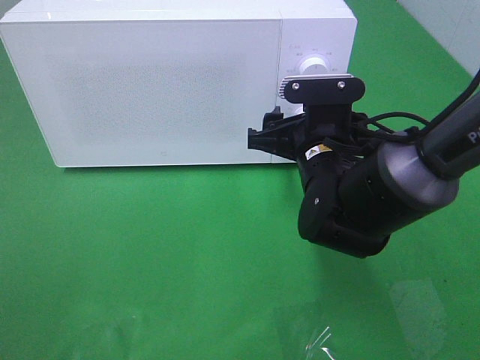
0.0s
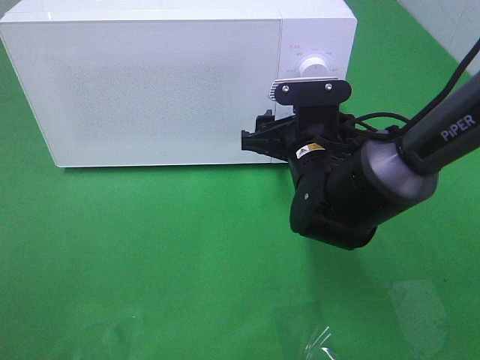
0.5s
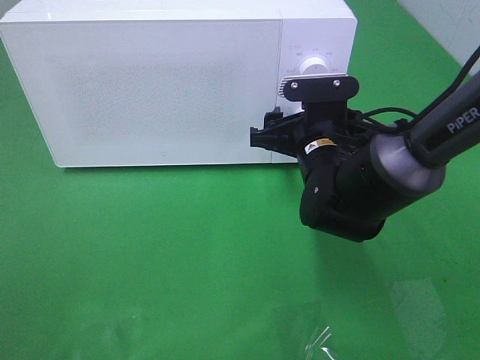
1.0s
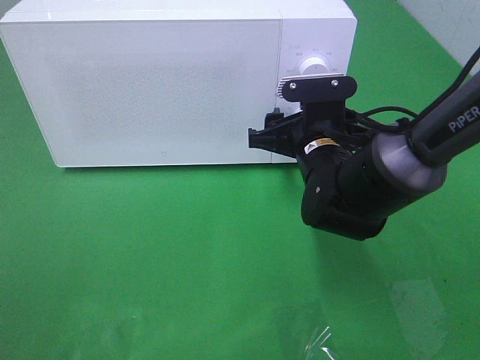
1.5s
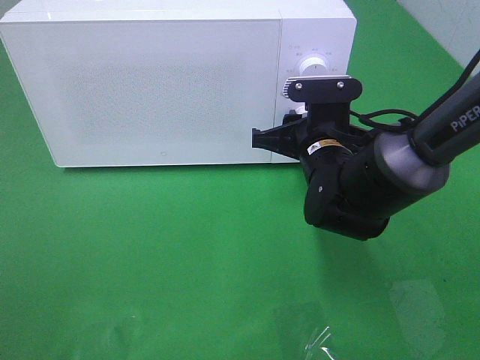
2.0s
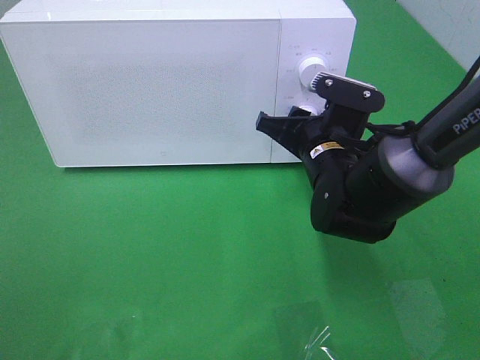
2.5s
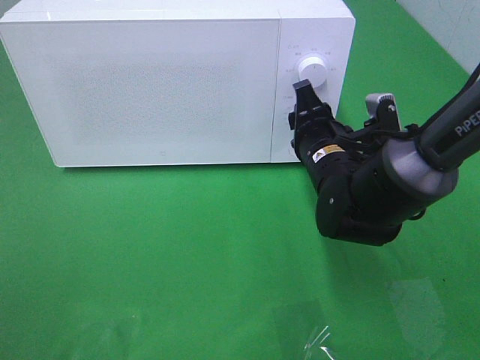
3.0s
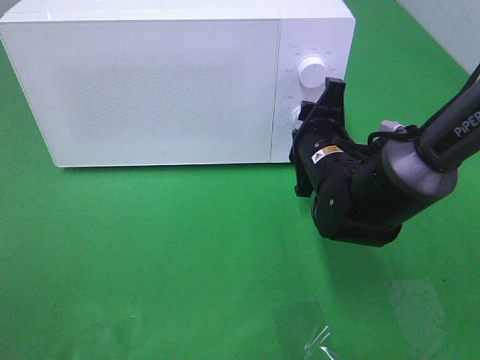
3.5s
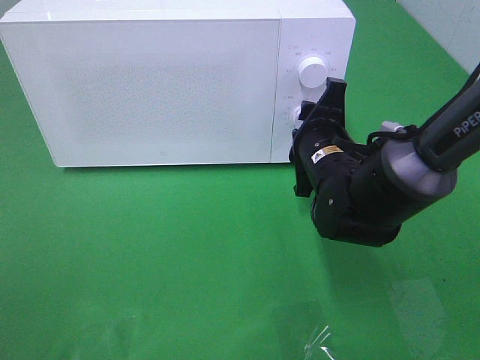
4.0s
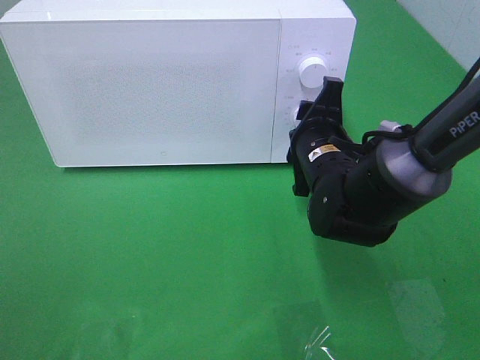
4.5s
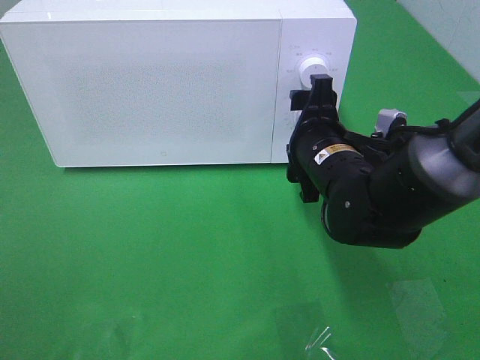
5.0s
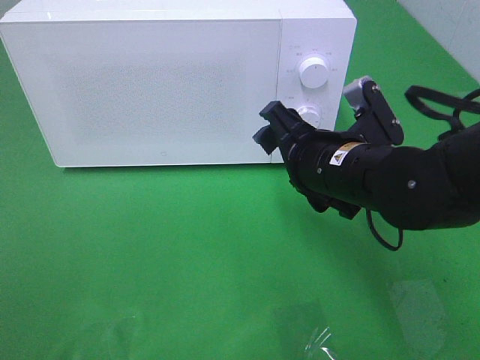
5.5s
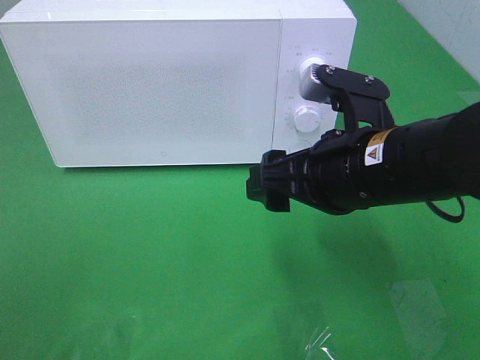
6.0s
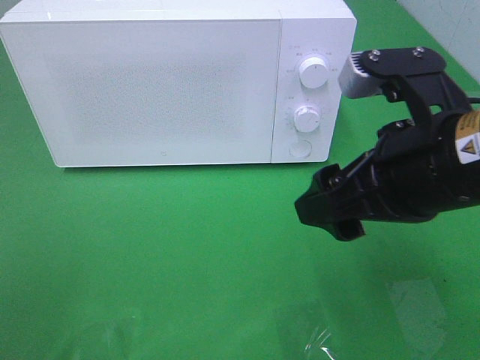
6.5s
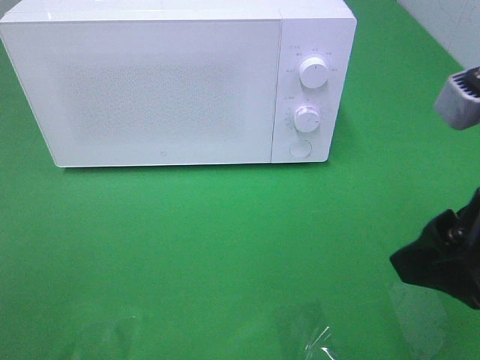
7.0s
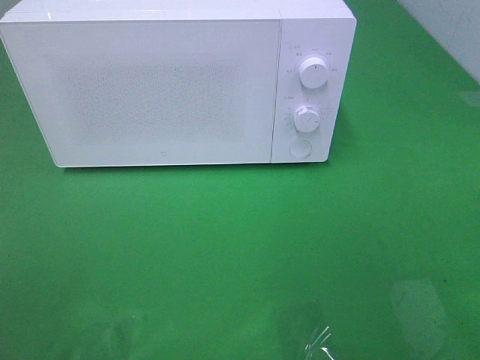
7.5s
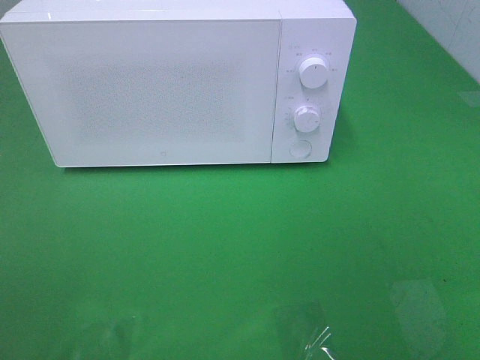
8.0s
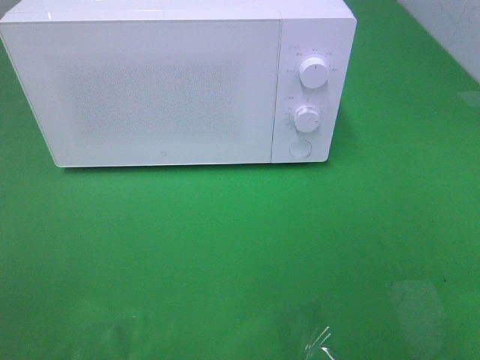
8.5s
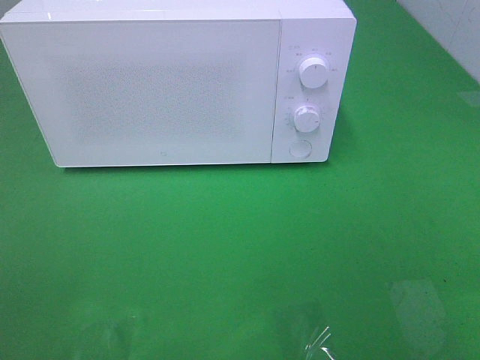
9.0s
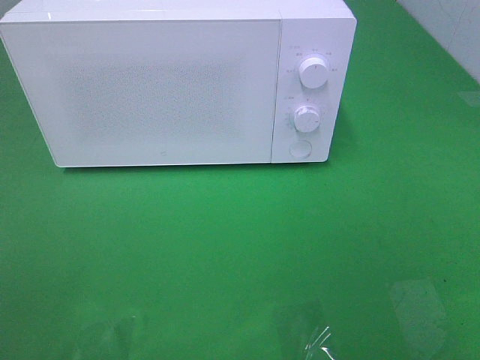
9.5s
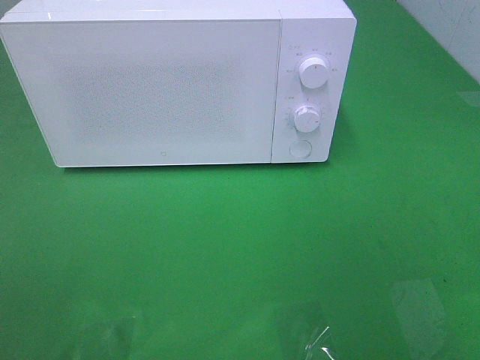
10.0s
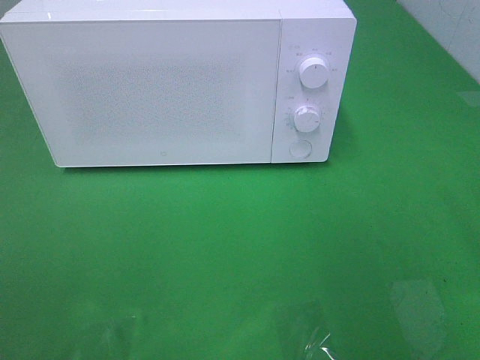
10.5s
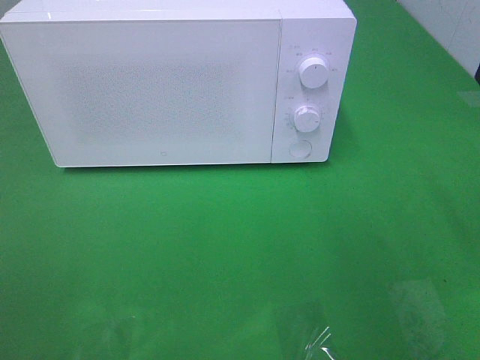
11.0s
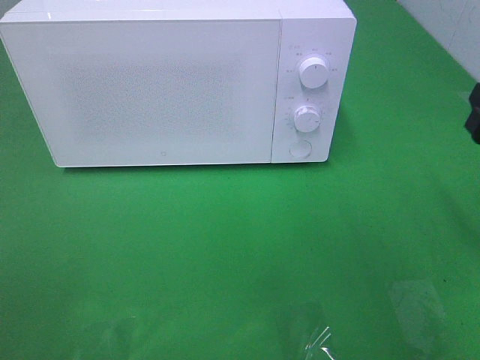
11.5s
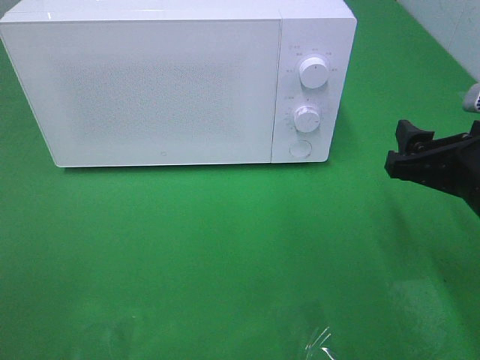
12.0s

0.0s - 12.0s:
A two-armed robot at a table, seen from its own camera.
Task of the whole recording: Heat the burger.
Step, 0.0s - 4.5s: Right hand: twist timer button.
0.0s - 2.0s: The right gripper closes its fingers.
4.0s - 6.0s: The right gripper heads backward and upward, covering approximately 15 cm, and opens up.
6.0s - 8.0s: The right gripper is displaced backward, to the right and upward by roughly 30 cm.
10.0s - 12.0s: The right gripper goes some 20 cm downward and forward.

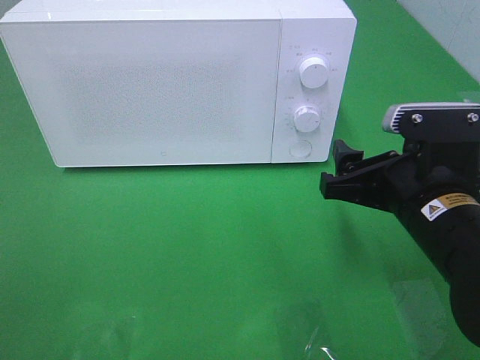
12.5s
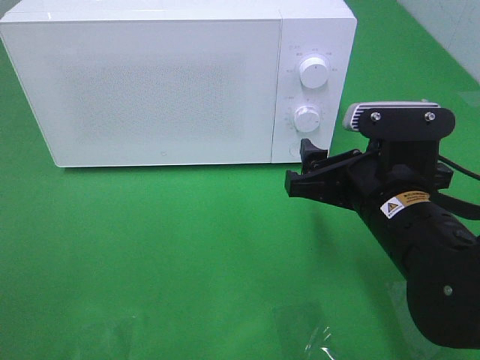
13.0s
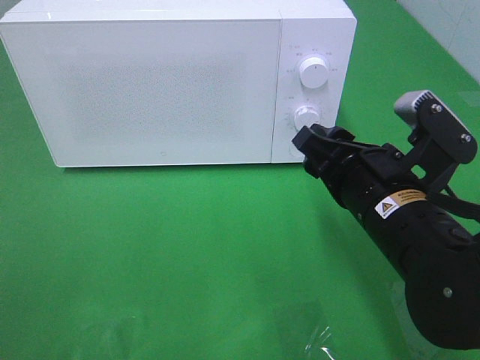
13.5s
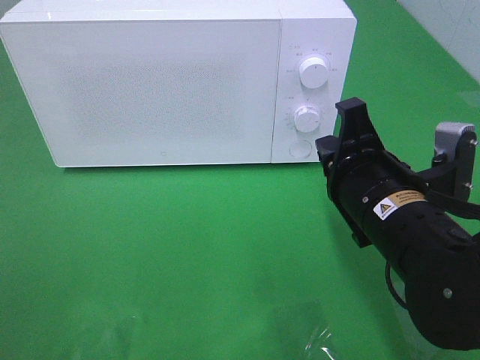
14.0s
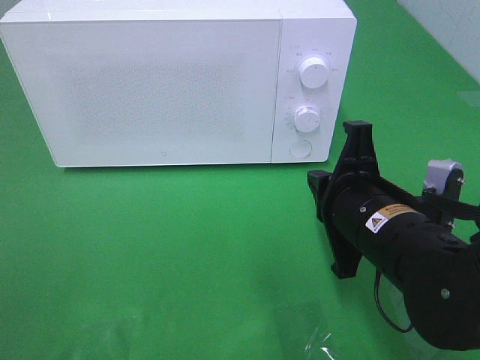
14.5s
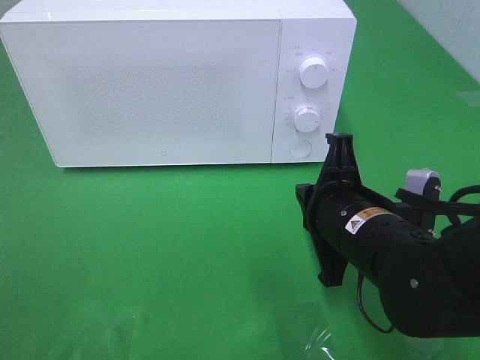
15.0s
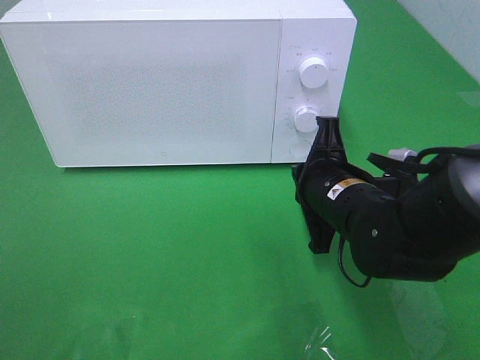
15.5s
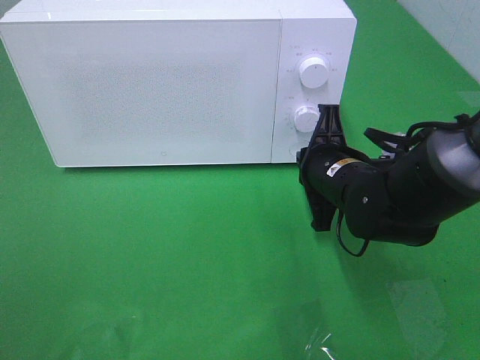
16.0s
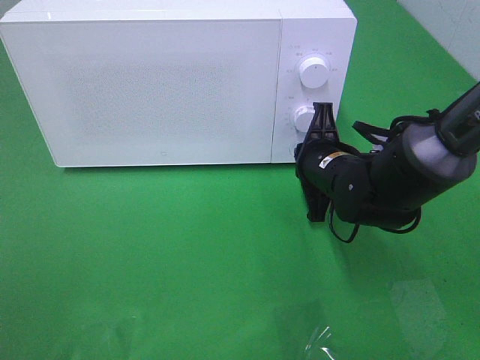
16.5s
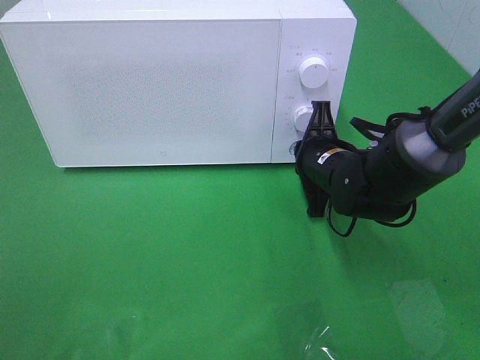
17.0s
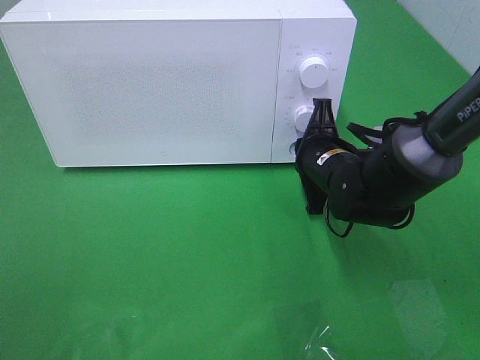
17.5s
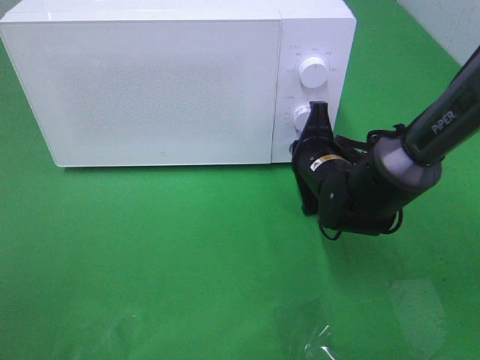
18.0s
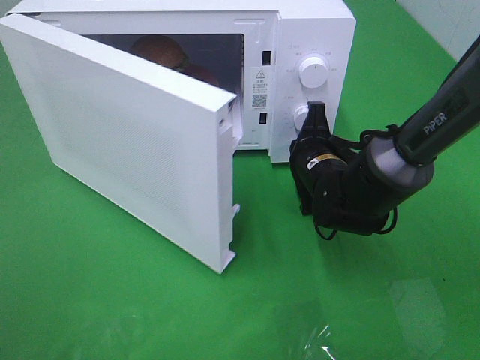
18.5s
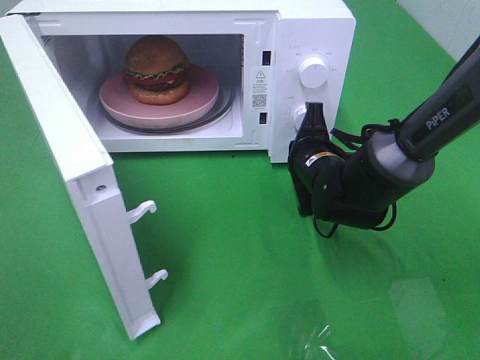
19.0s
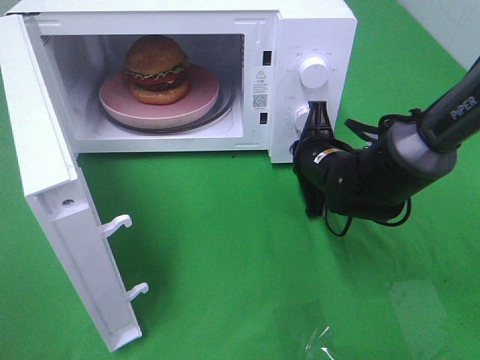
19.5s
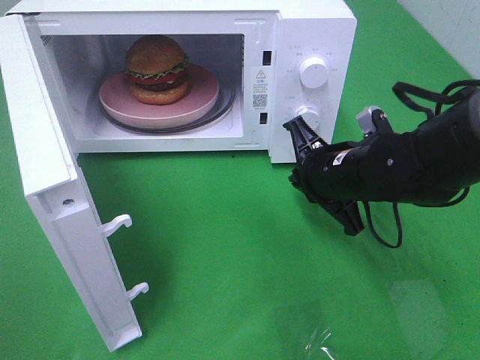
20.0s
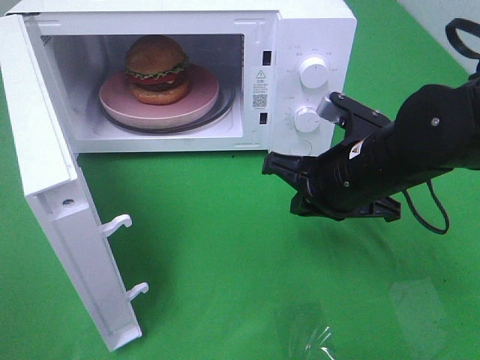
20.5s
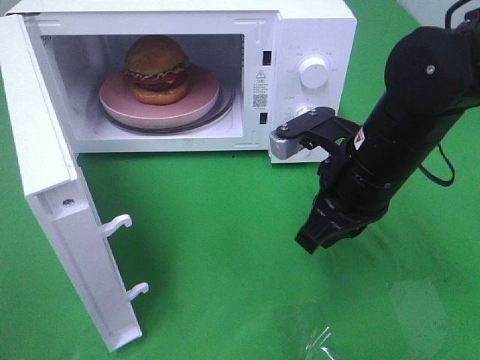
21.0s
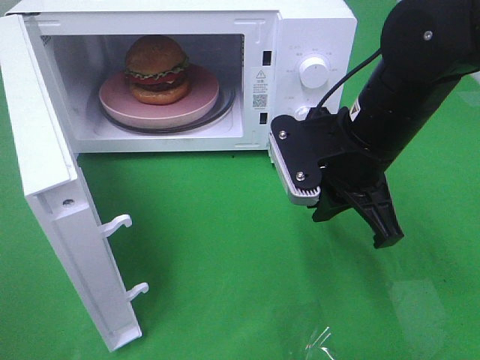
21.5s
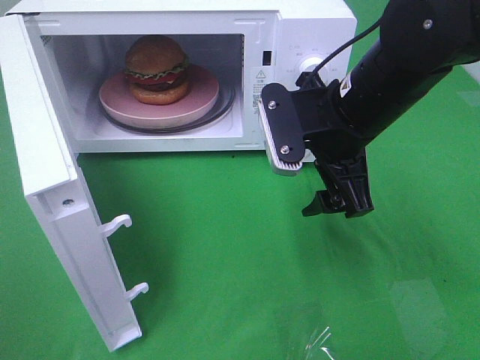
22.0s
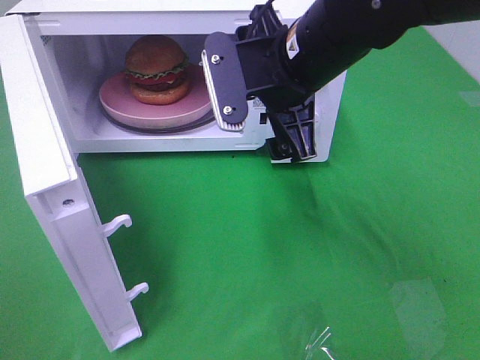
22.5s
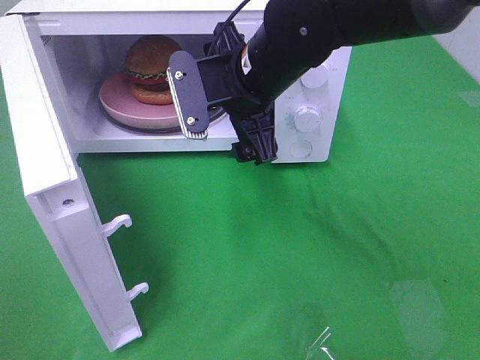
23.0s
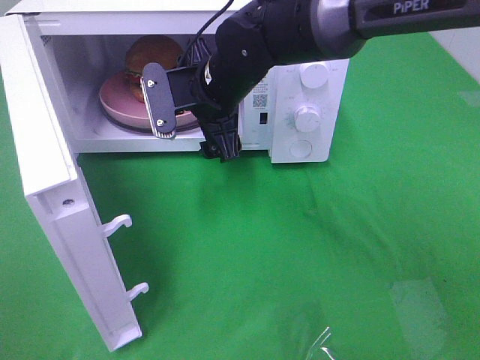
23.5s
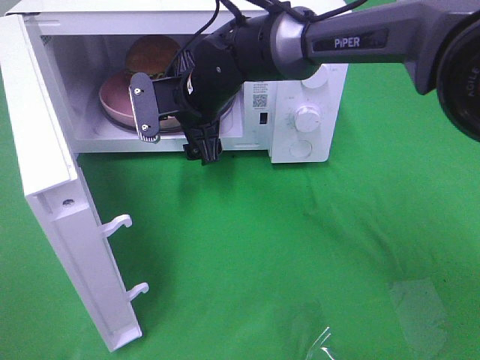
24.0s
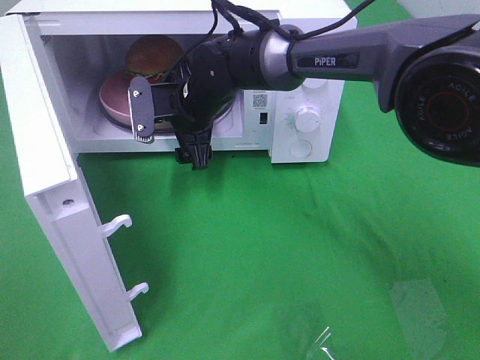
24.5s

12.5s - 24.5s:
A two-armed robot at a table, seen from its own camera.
Task of the whole recording: Heat the burger.
Step, 12.5s - 19.5s: Right hand: press the switch.
12.5s - 14.5s: The right gripper closes up.
14.5s - 16.5s: The right gripper shifts approximately 15 cm forward and downward.
18.5s - 20.5s: The right gripper shifts roughly 10 cm backward and upward.
20.5s - 22.5s: The right gripper travels upward and to the left by roughly 10 cm, and opens.
22.5s - 24.5s: The right gripper goes some 20 cm forward, downward and to the left.

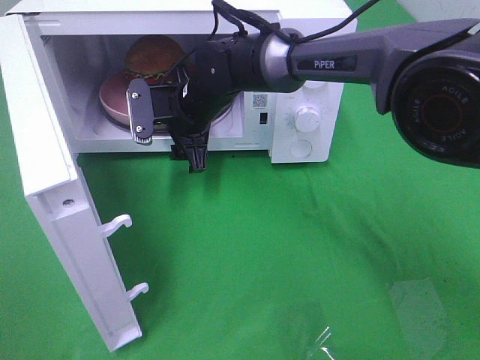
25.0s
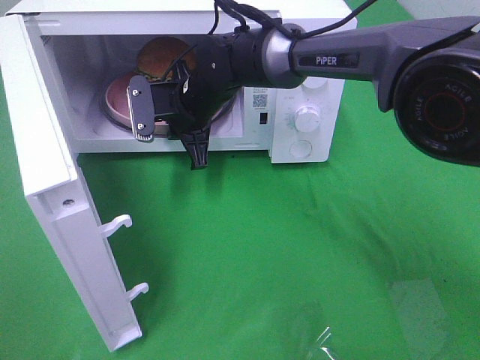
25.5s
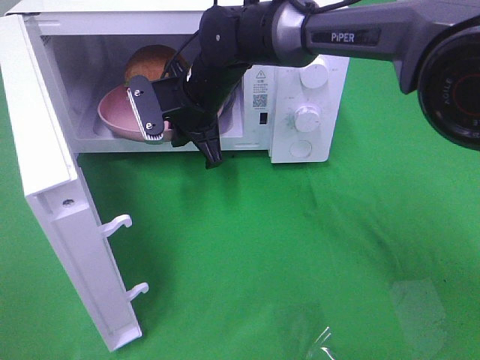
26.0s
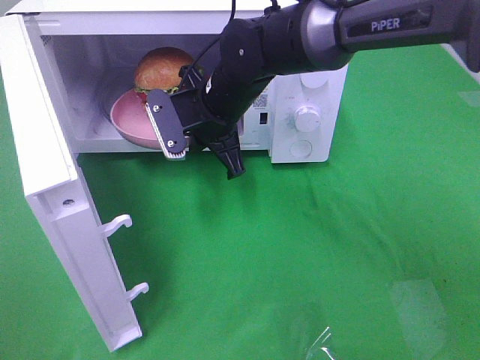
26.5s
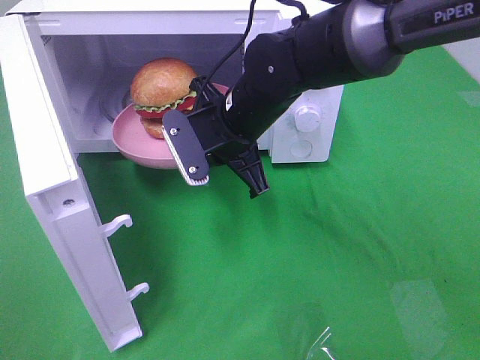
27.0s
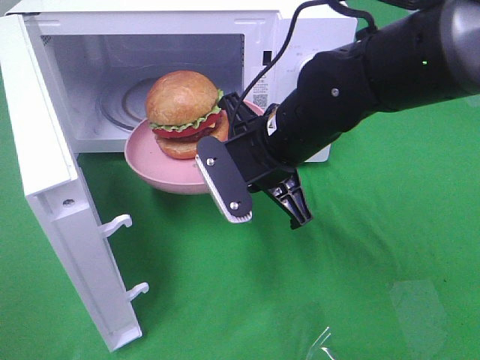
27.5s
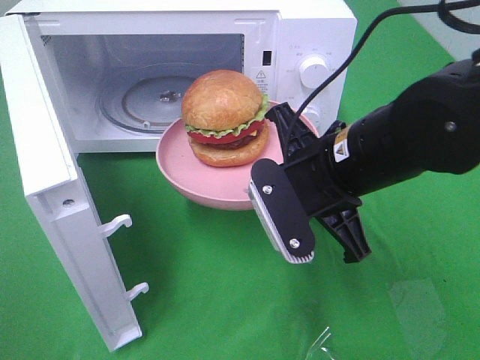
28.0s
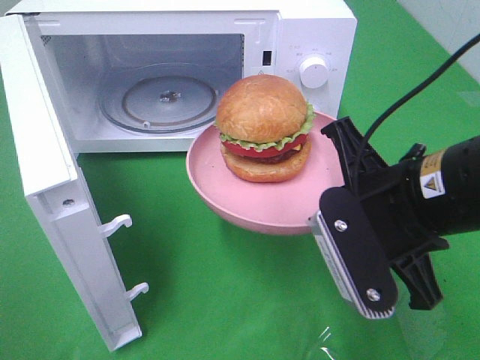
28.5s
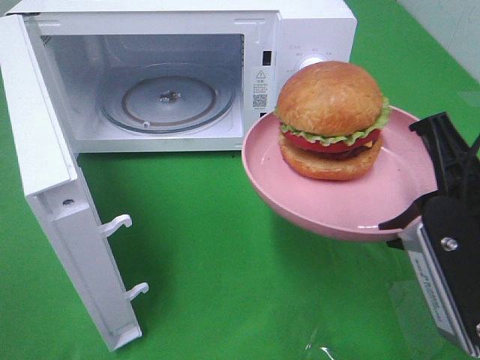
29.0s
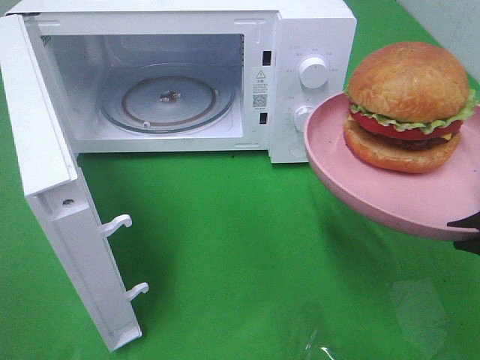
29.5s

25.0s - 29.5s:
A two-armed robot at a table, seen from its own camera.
Task of the whole recording: Heat the burger.
25.0s - 27.0s: The right gripper is displaced backward and to the right by roughly 10 cm, and closes.
27.0s - 29.5s: The right gripper is displaced backward, to the right and upward by some 35 cm.
